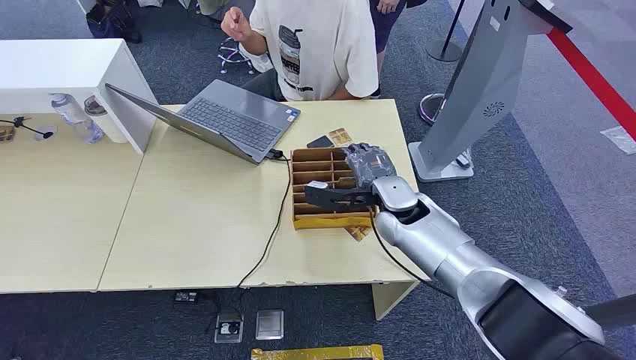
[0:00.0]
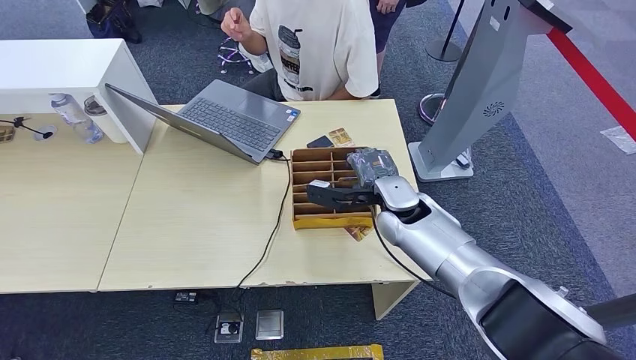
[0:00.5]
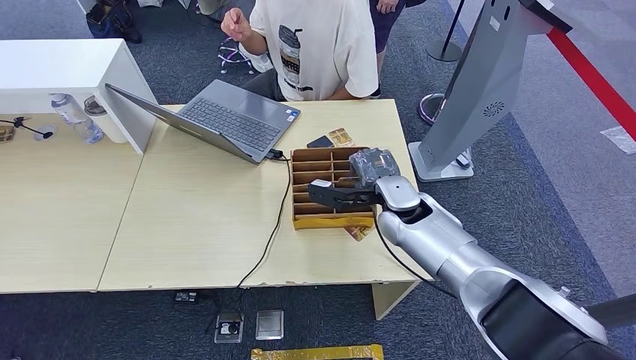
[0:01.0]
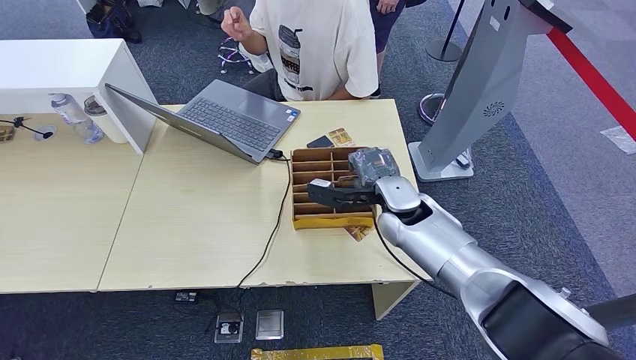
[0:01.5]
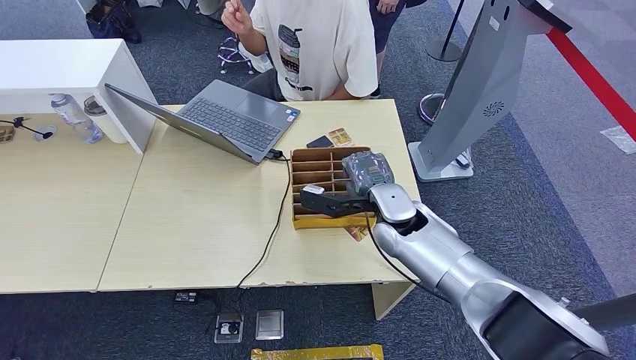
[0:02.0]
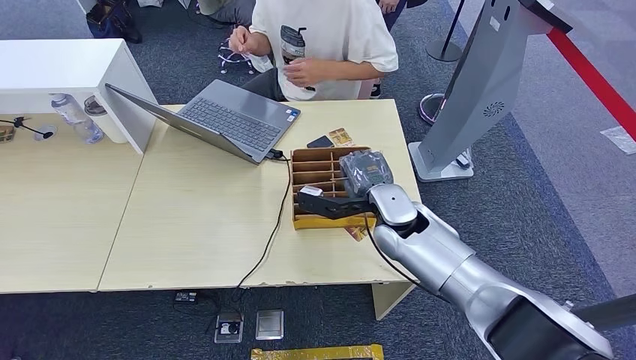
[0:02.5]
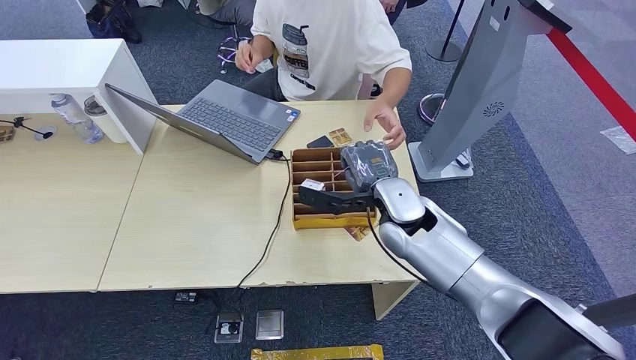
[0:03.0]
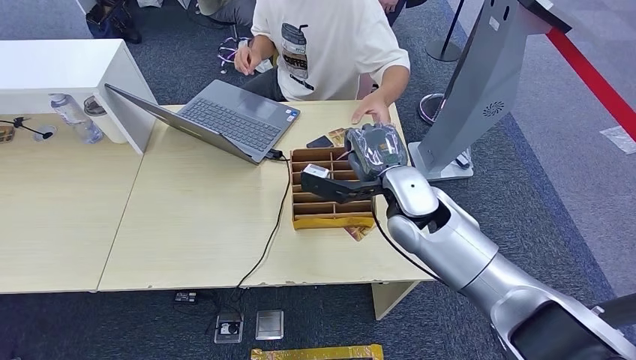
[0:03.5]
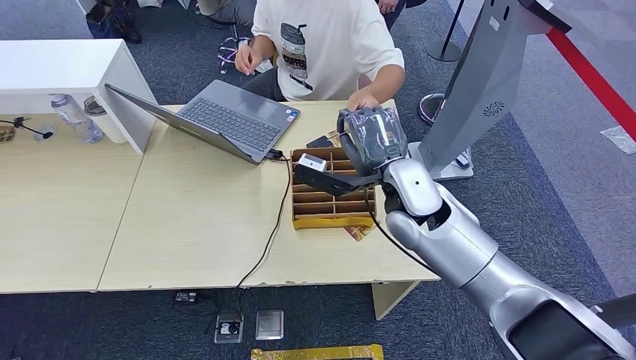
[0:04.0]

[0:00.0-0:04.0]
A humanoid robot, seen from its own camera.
Step, 0:00.0 to 0:03.5: Pick up the key card from the card box.
0:02.0 to 0:04.0: The right hand shifts about 10 cm upward.
